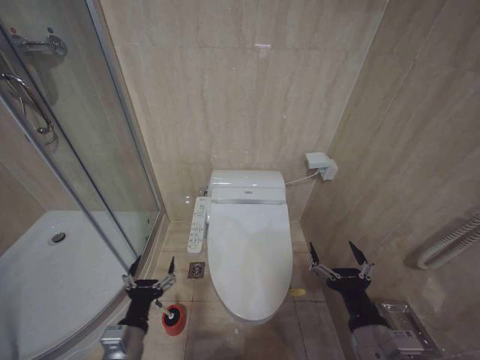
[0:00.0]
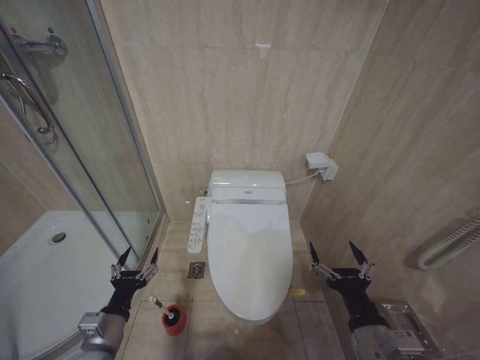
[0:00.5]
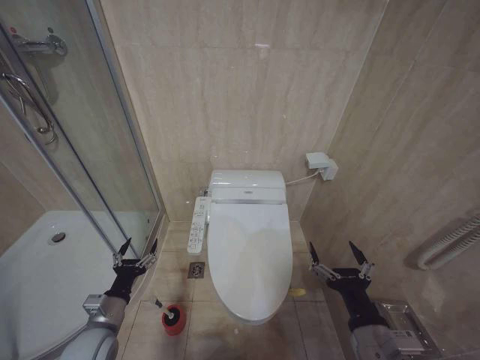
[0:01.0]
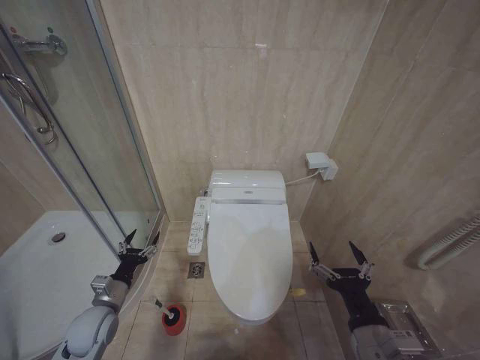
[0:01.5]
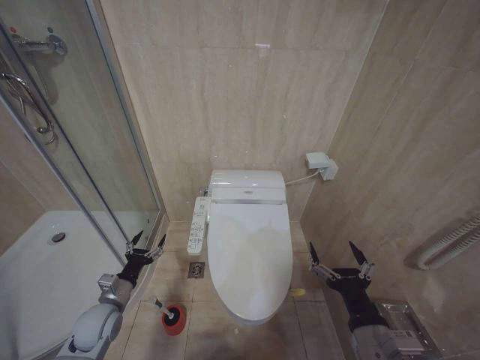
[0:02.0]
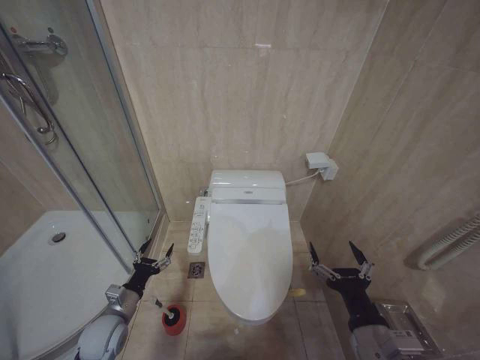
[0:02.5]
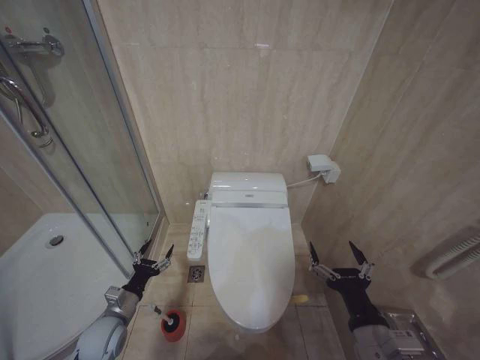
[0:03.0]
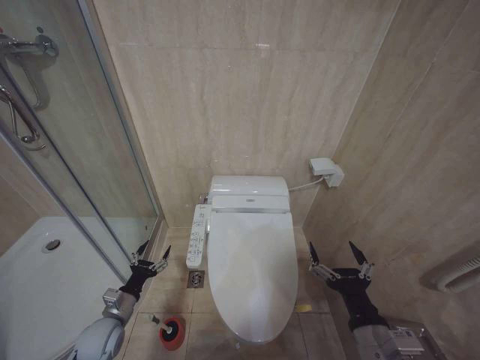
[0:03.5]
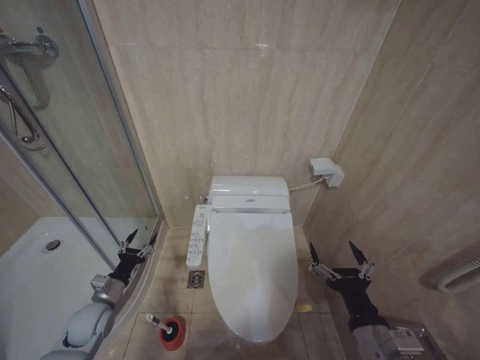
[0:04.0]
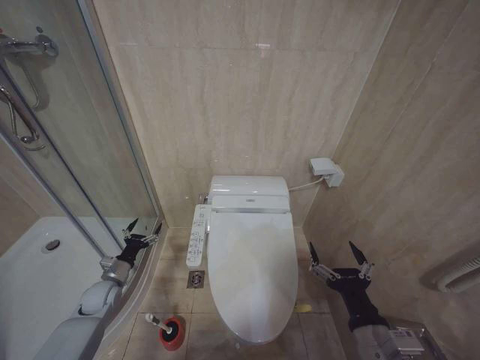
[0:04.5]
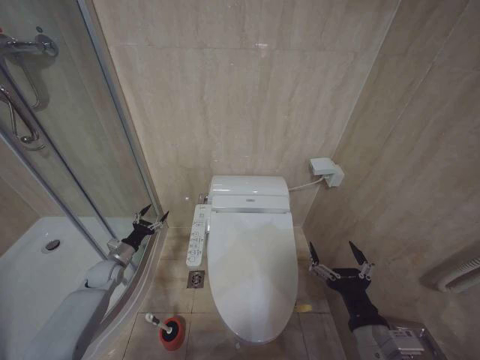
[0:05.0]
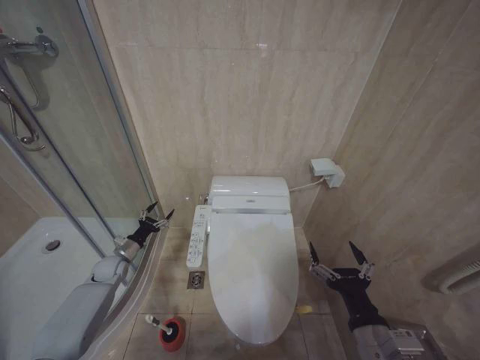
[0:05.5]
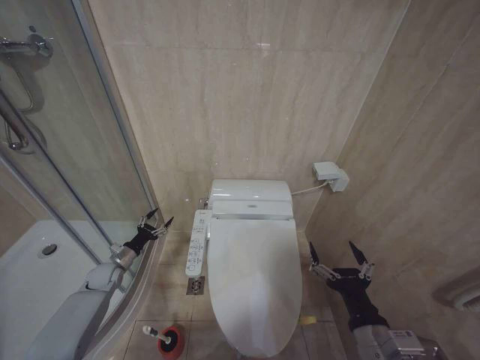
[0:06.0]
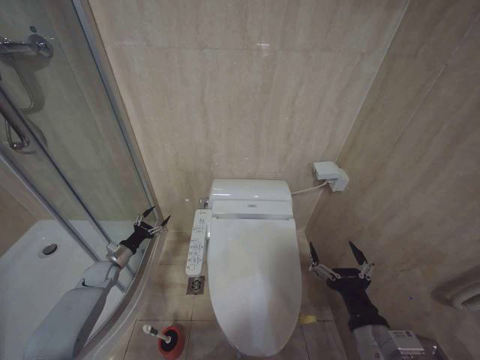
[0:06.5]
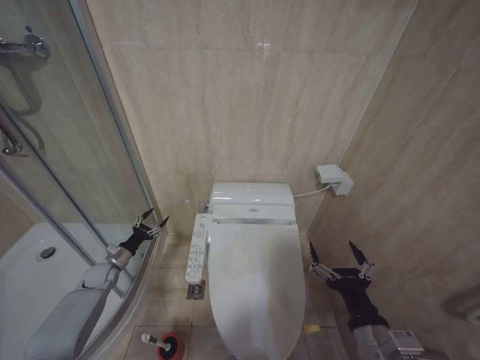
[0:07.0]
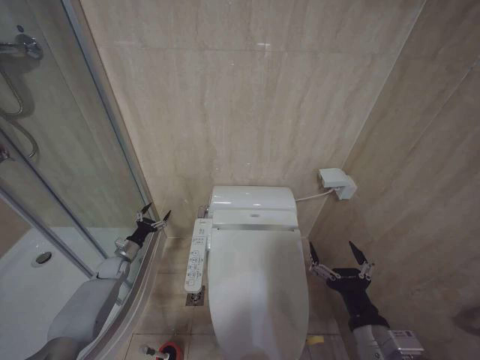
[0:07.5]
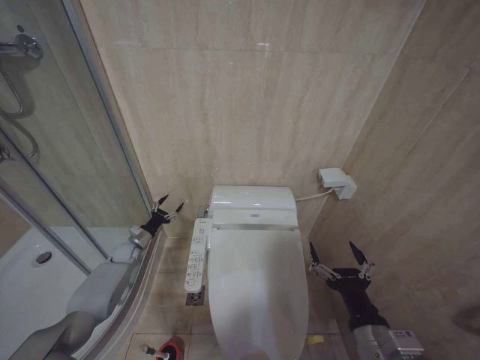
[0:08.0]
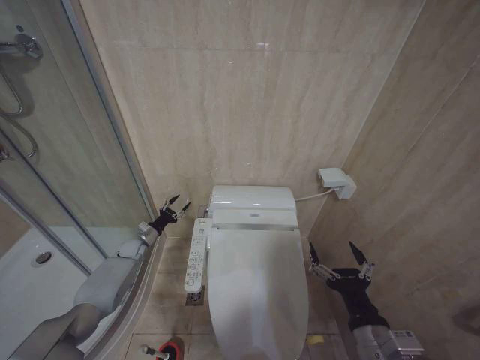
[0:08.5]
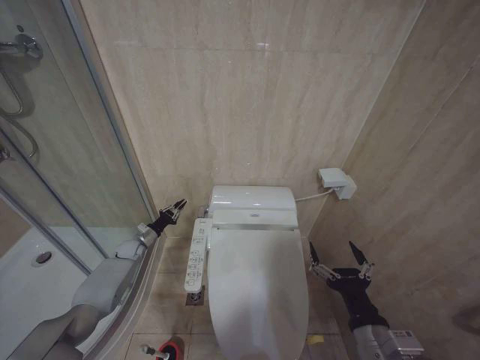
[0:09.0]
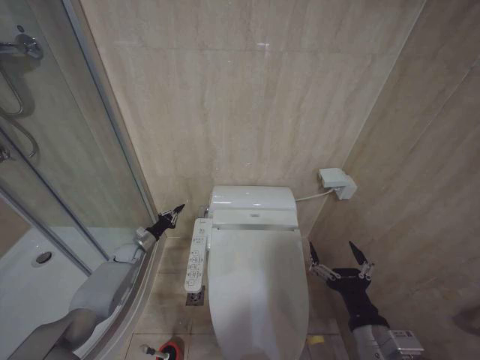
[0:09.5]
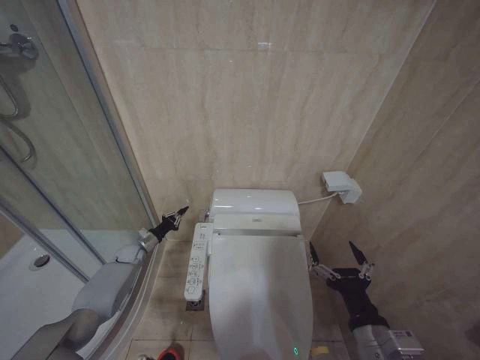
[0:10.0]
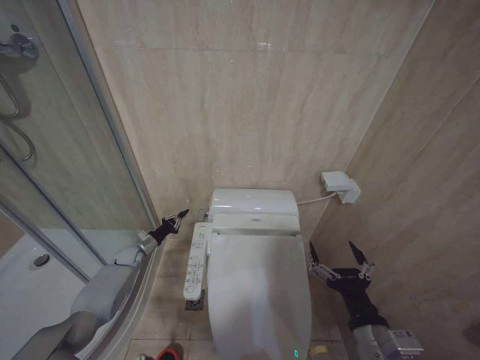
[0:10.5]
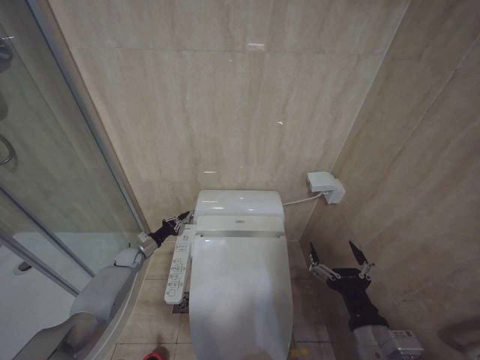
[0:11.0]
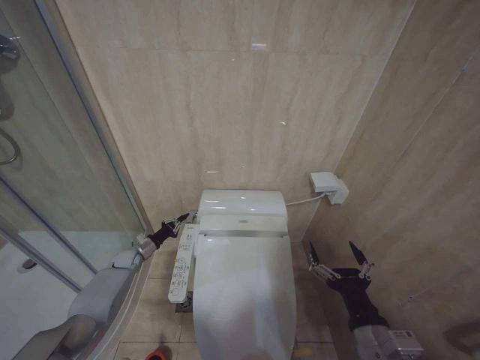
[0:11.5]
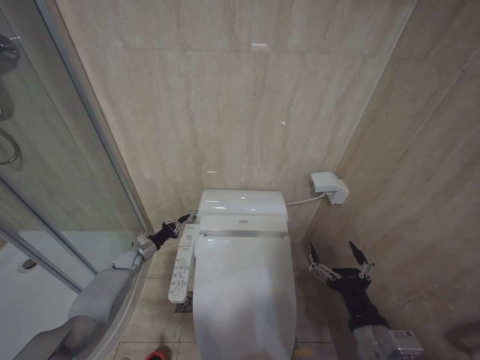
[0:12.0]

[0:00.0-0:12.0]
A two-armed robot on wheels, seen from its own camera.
Task of the whole recording: Open the toilet lid, clean the toilet bowl with a toilet brush, close the toilet lid, and flush.
0:00.0 to 0:02.0: The left gripper travels forward, to the left and downward by about 20 cm.
0:02.0 to 0:04.0: The grippers stay close to where they were, moving slightly.
0:04.0 to 0:06.0: The left gripper is displaced forward by approximately 15 cm.
0:06.0 to 0:08.0: The left gripper moves forward, some 5 cm.
0:08.0 to 0:10.0: The left gripper closes.
0:10.0 to 0:12.0: The grippers make only small movements.

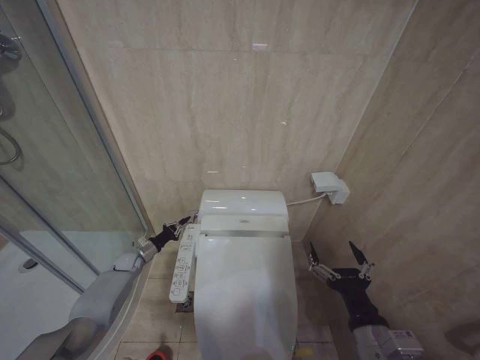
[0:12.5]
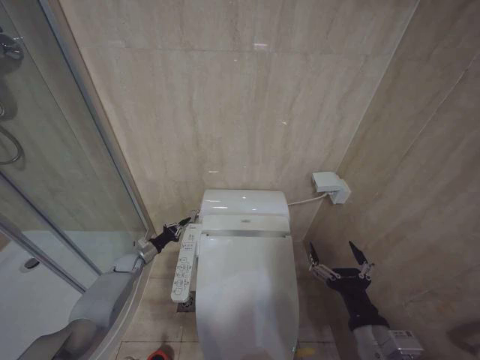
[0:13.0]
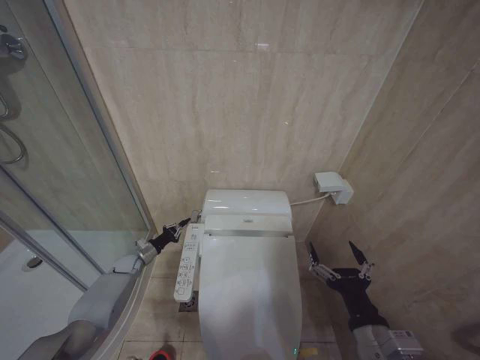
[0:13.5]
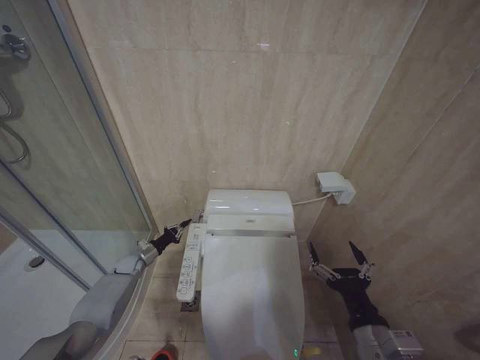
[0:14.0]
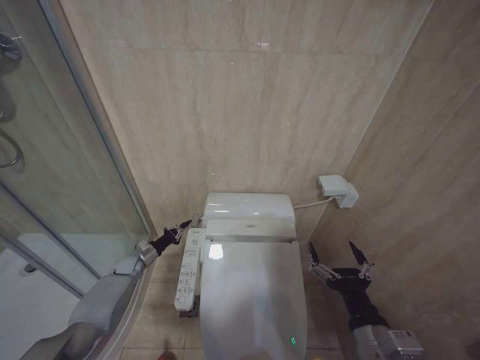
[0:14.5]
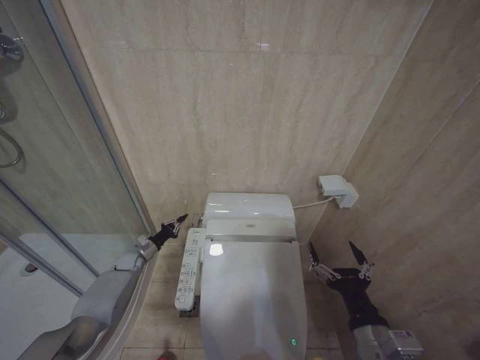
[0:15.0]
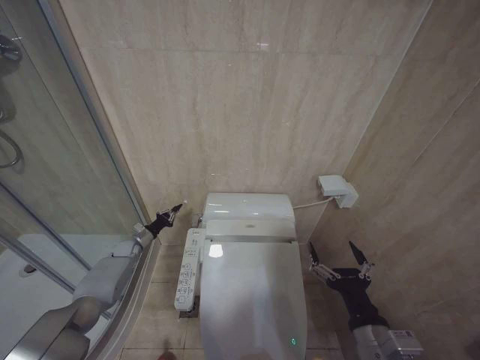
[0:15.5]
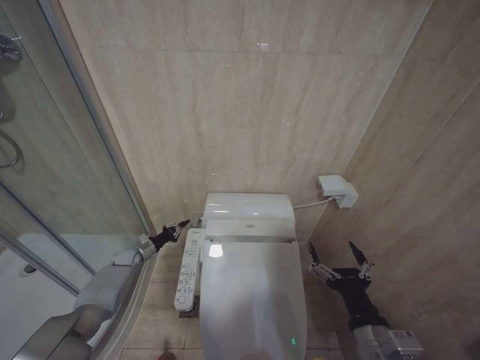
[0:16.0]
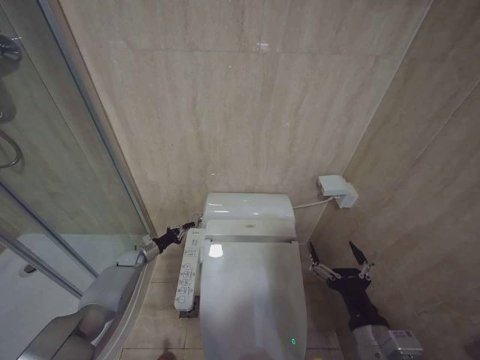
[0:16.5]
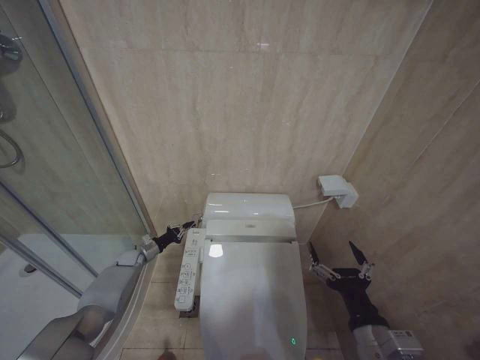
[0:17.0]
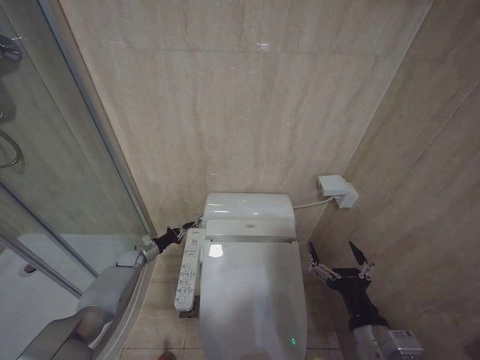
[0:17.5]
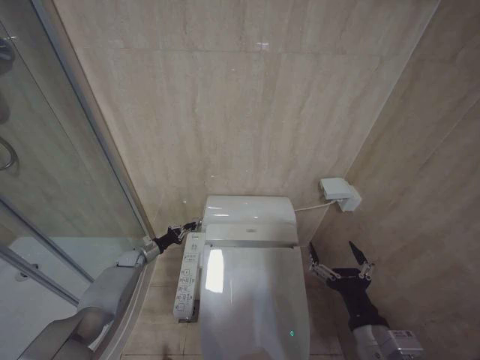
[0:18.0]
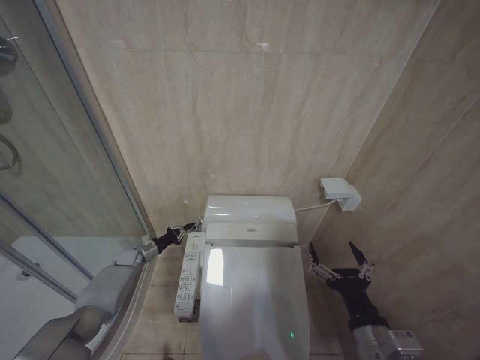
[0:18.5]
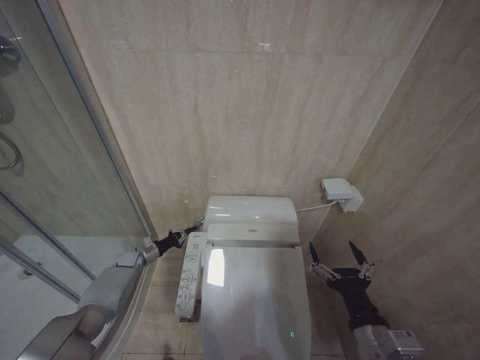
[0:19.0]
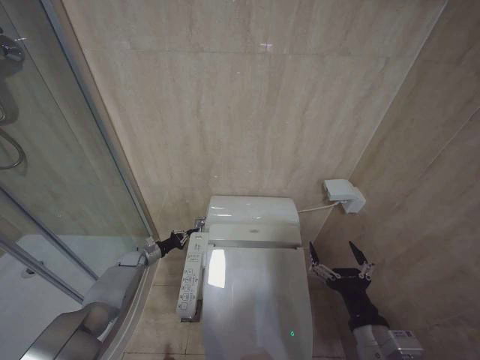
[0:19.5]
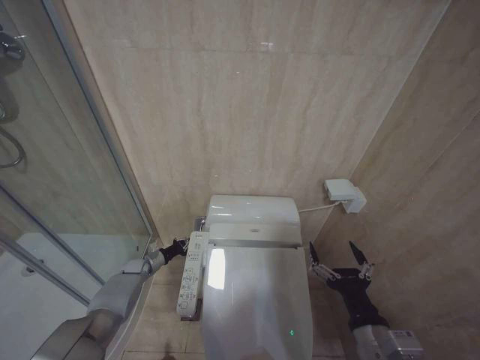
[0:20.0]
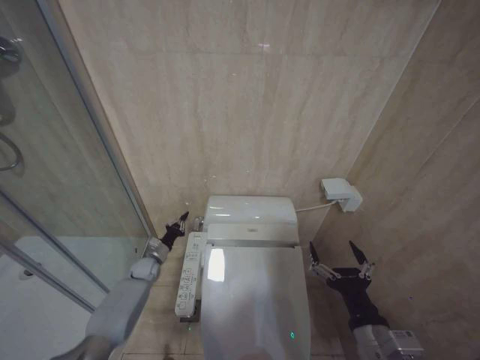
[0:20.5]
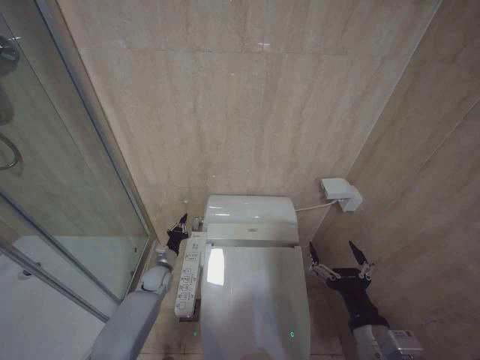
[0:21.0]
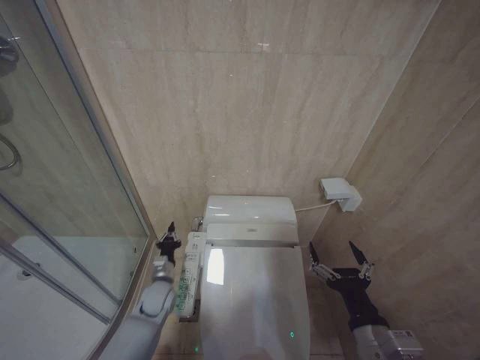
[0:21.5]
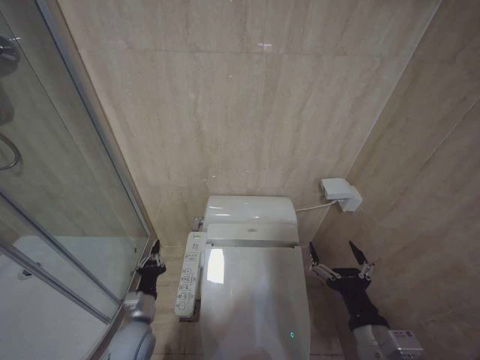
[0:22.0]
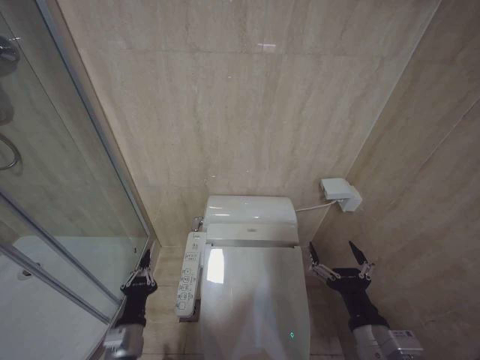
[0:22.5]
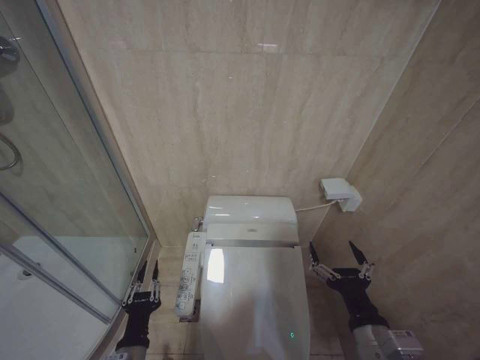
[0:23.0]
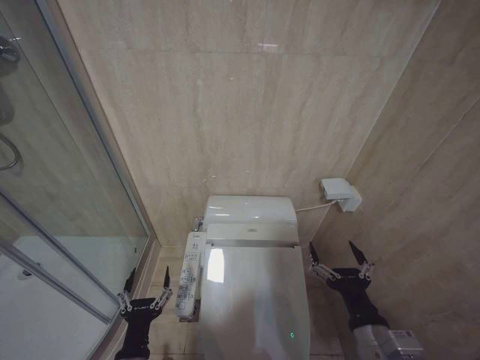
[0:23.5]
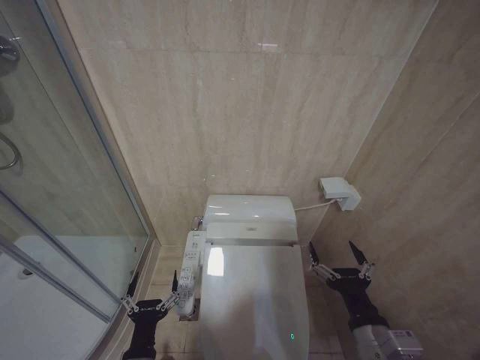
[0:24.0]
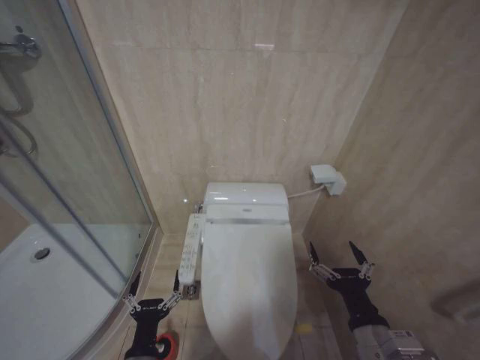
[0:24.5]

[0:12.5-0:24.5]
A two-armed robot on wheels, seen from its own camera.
Task of the whole recording: Open the toilet lid, clean the toilet bowl with a toilet brush, close the toilet lid, and flush.
0:12.5 to 0:16.5: There are only small adjustments of the grippers.
0:16.5 to 0:18.5: Neither gripper changes place.
0:18.5 to 0:20.5: The left gripper shifts some 5 cm to the right.
0:20.5 to 0:22.5: The left gripper heads backward, covering some 30 cm.
0:22.5 to 0:24.5: The left gripper shifts roughly 5 cm backward, and opens up.

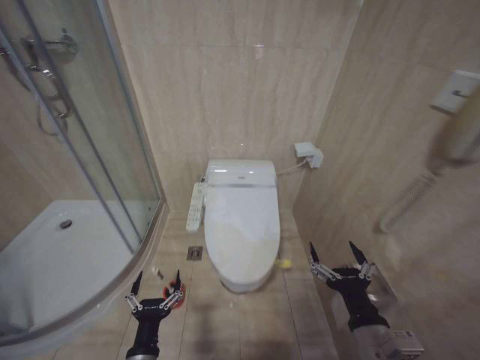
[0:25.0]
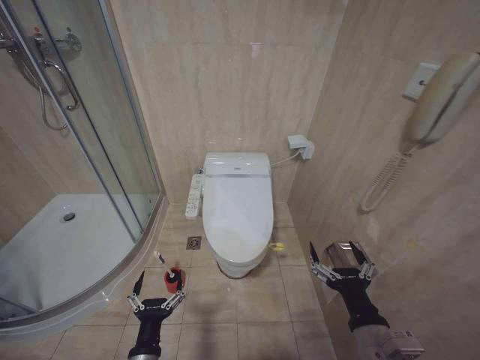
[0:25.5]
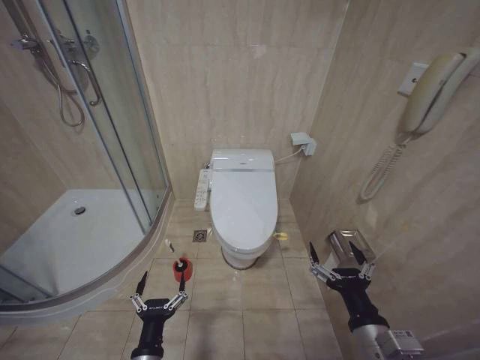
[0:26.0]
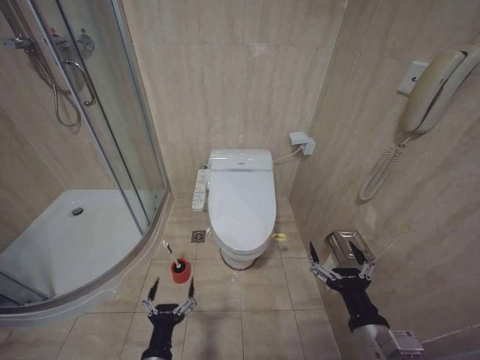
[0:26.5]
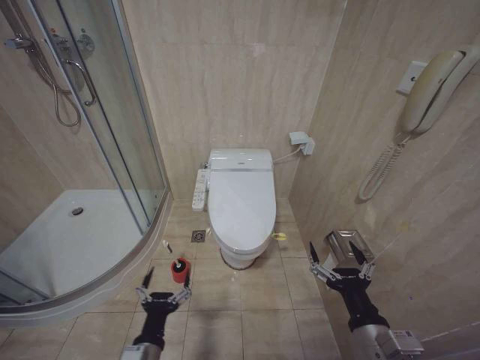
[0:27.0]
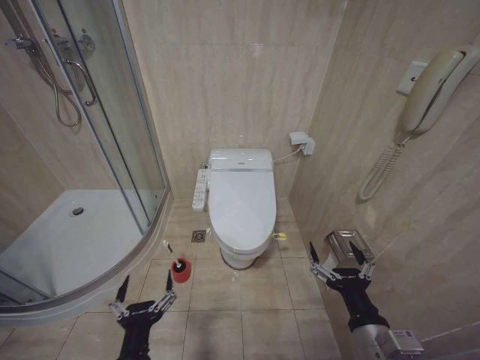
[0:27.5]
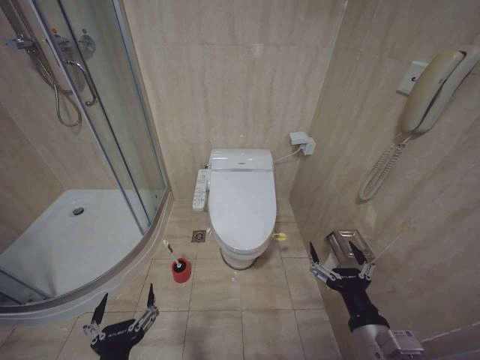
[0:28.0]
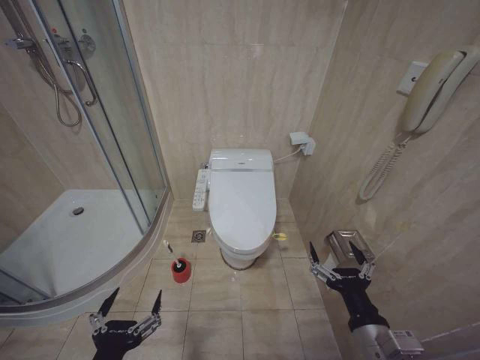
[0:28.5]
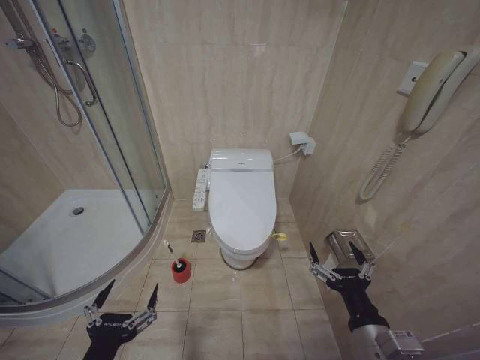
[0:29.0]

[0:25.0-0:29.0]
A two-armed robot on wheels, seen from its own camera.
Task of the whole recording: Open the toilet lid, clean the toilet bowl with a toilet brush, close the toilet lid, and flush.
0:25.0 to 0:27.0: The grippers make only small movements.
0:27.0 to 0:29.0: The left gripper travels upward, backward and to the left by approximately 15 cm.
